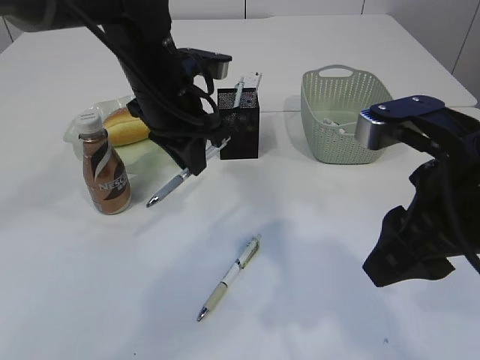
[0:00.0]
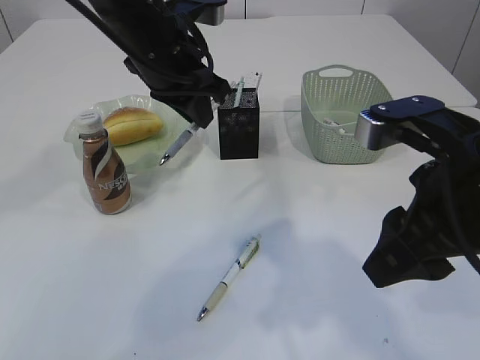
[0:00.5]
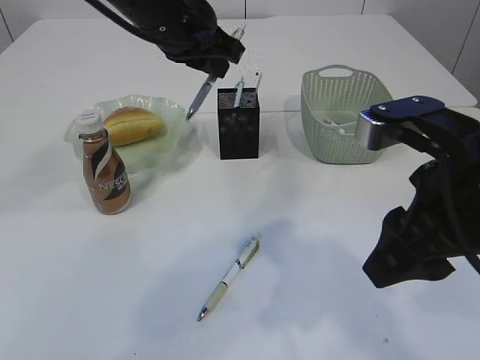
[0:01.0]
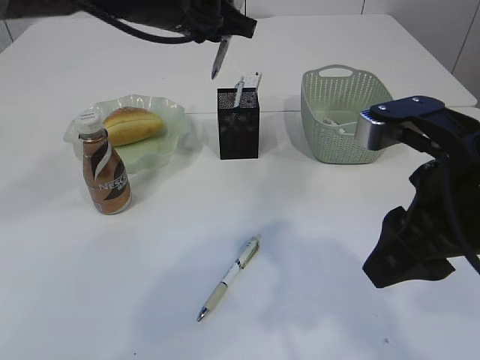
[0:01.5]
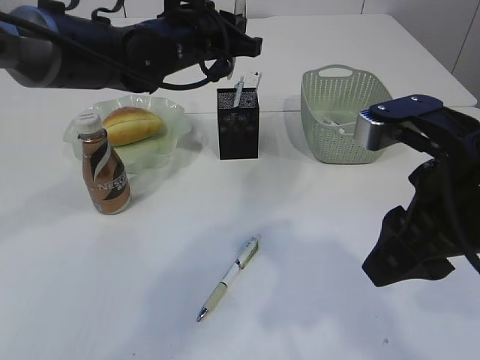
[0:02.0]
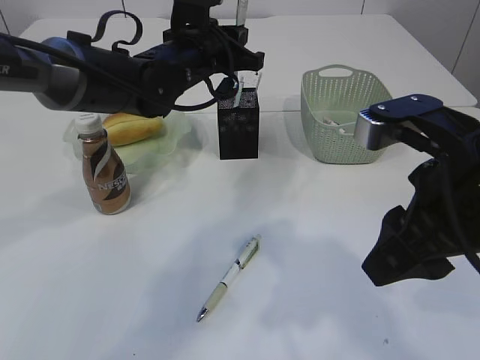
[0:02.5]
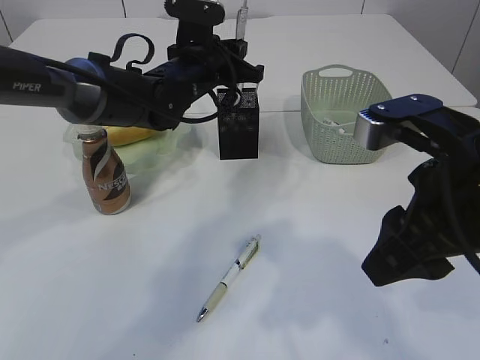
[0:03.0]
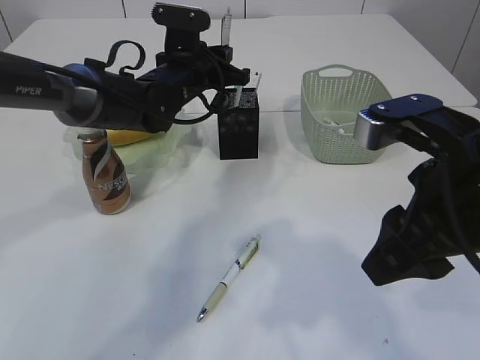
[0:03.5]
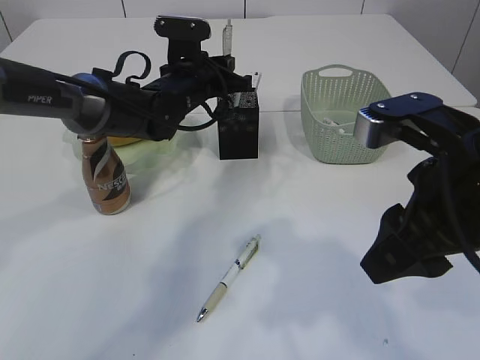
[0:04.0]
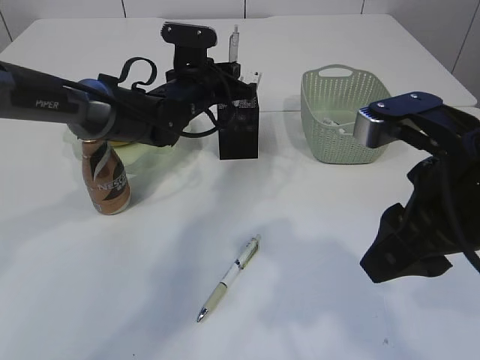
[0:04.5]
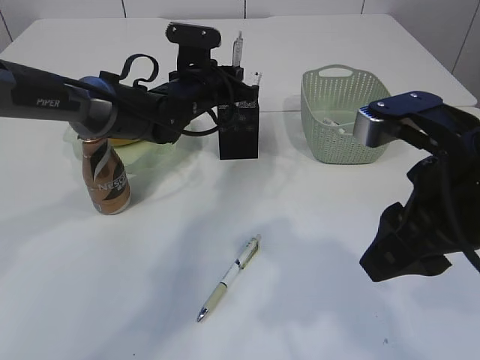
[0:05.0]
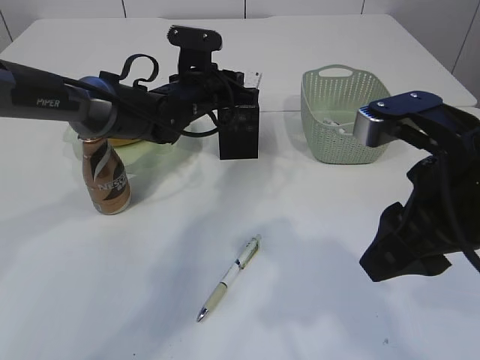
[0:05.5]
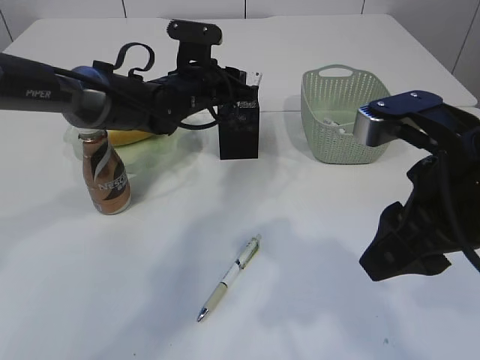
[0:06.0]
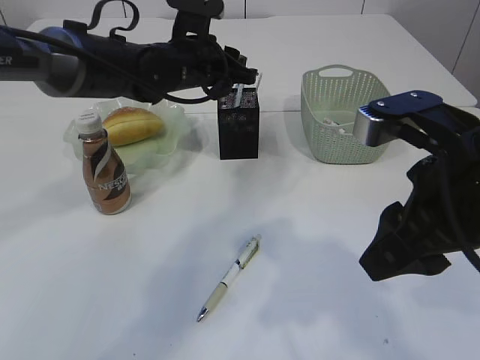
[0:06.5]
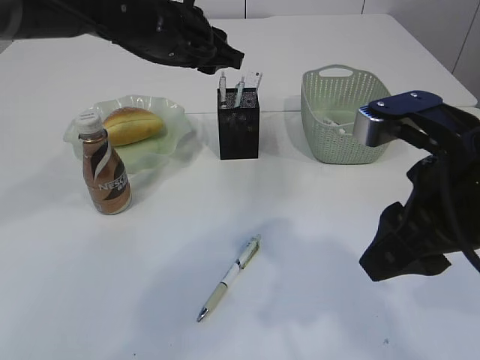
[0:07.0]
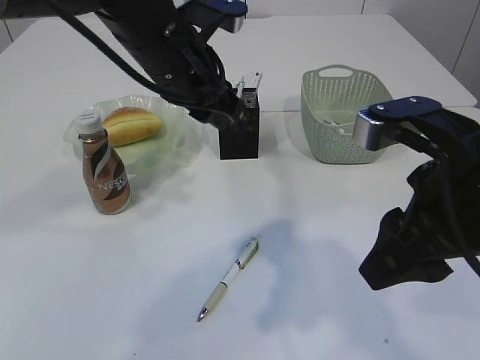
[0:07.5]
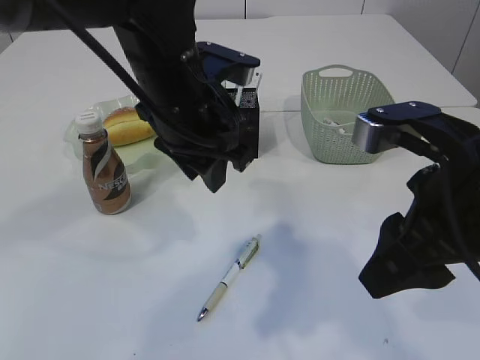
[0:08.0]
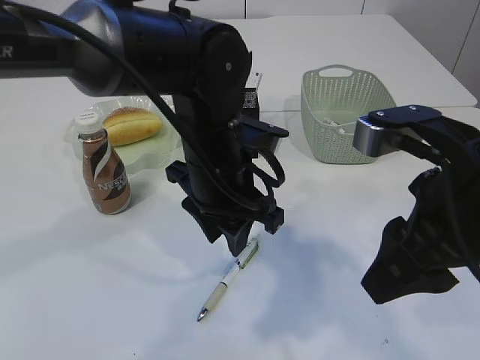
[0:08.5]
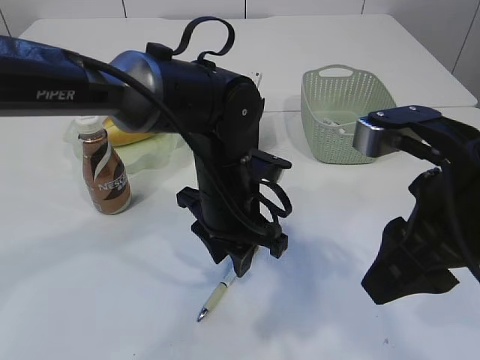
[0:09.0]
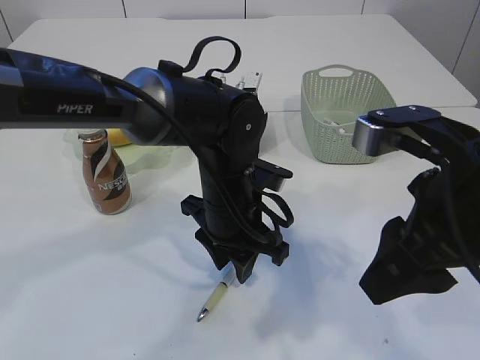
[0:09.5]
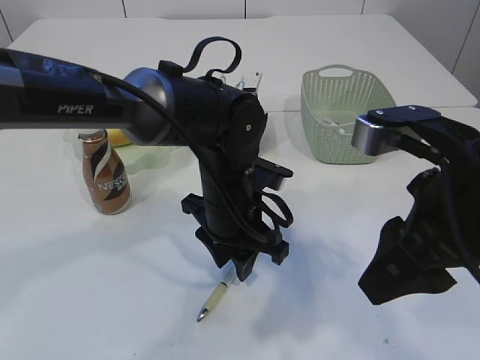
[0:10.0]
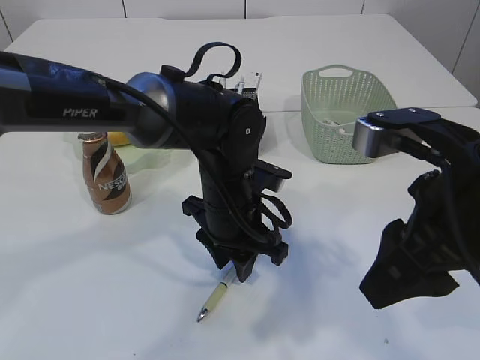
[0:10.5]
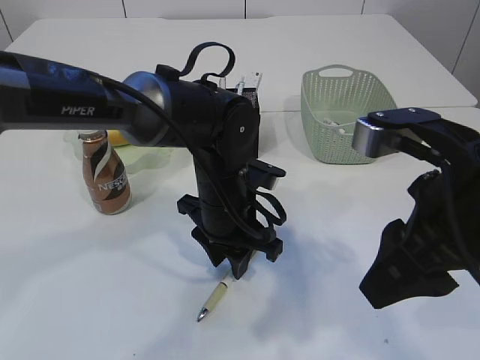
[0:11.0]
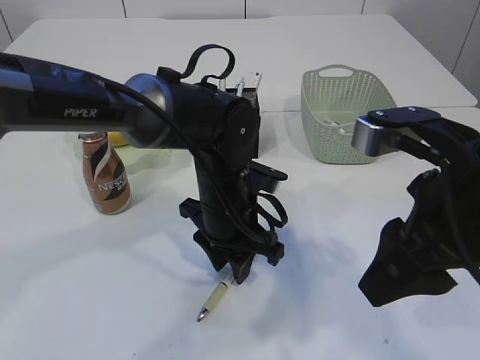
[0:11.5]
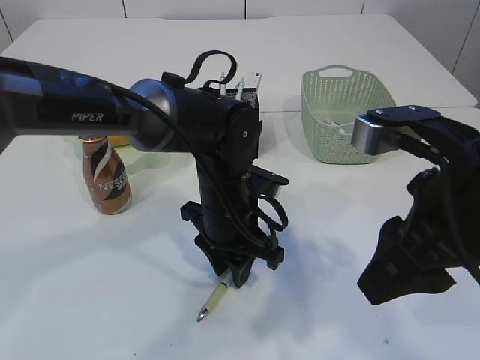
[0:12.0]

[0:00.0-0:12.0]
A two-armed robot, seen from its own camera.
Step, 0.0 to 7.0 s: Place the pen into the pen holder.
0.0 to 2.0 s: The left gripper goes about 5 cm forward.
2.0 to 4.0 s: The left gripper moves downward, some 10 cm.
4.0 to 6.0 s: The grippers make only small movements.
6.0 to 8.0 s: The left gripper moves backward and upward, approximately 15 cm.
8.0 to 10.0 s: The left gripper shifts roughly 10 cm downward.
10.0 to 12.0 s: The grippers make only small movements.

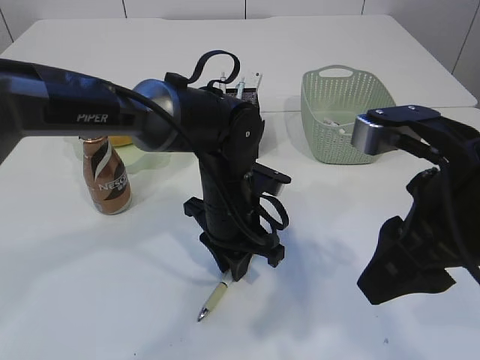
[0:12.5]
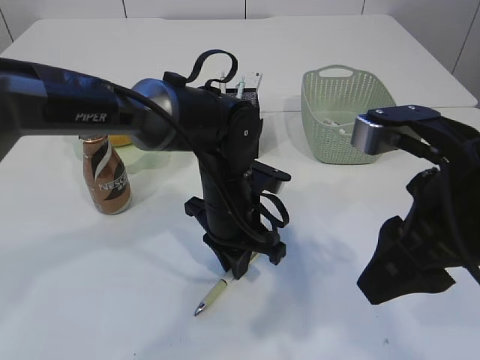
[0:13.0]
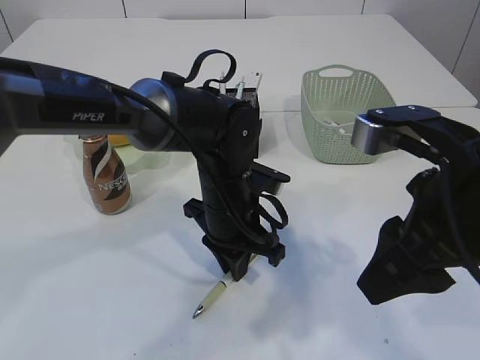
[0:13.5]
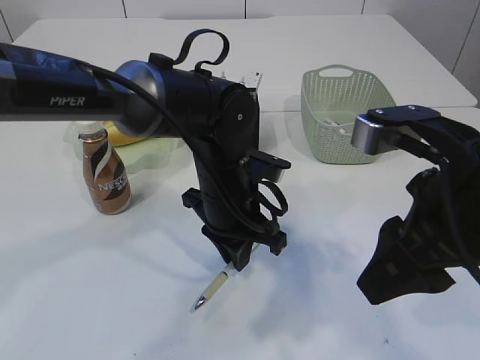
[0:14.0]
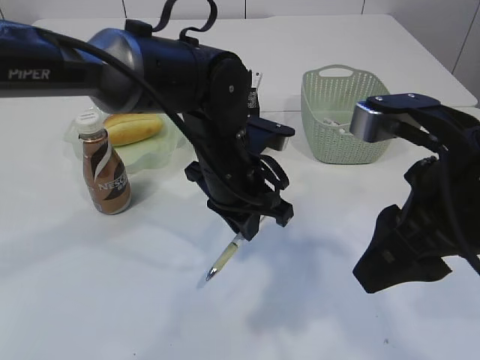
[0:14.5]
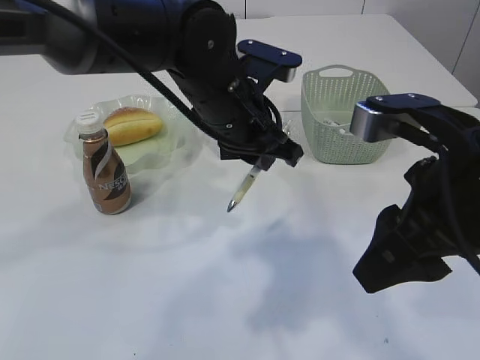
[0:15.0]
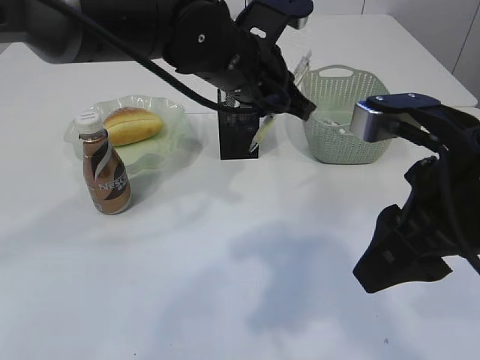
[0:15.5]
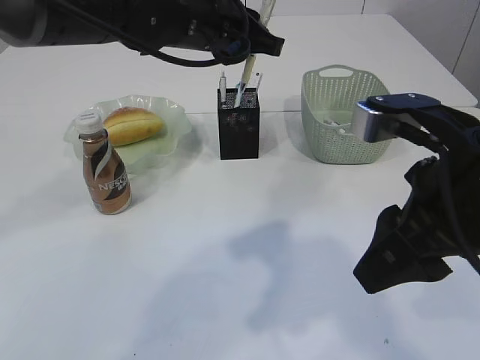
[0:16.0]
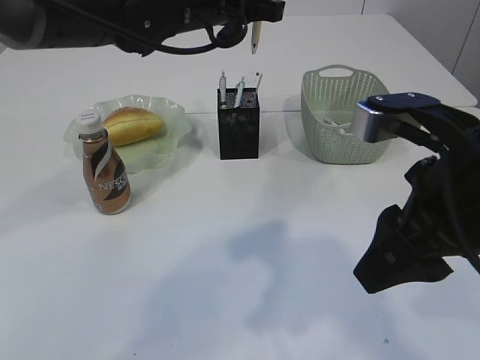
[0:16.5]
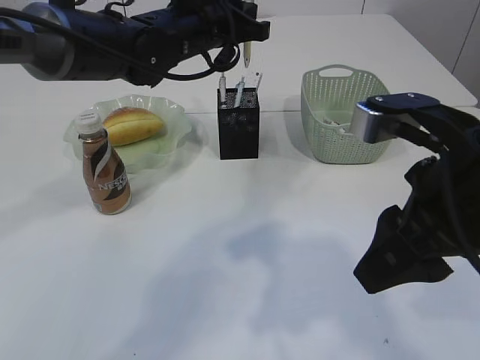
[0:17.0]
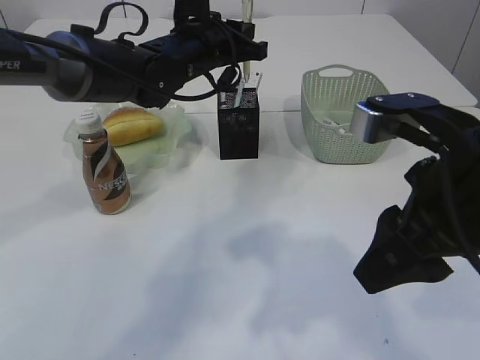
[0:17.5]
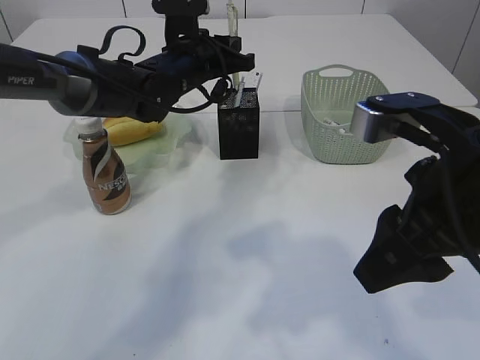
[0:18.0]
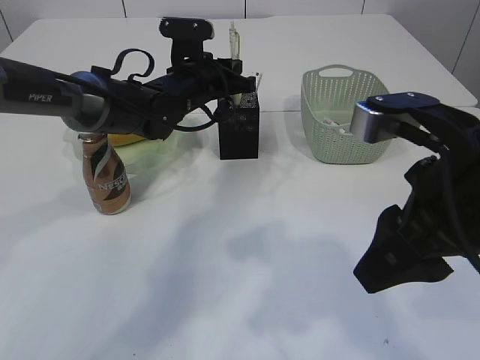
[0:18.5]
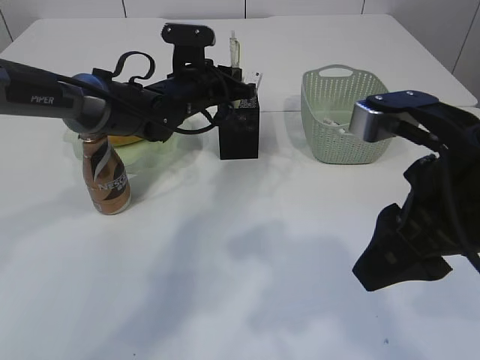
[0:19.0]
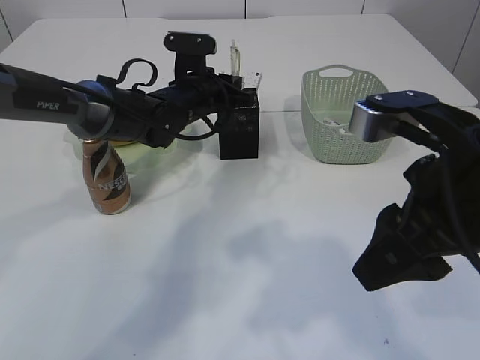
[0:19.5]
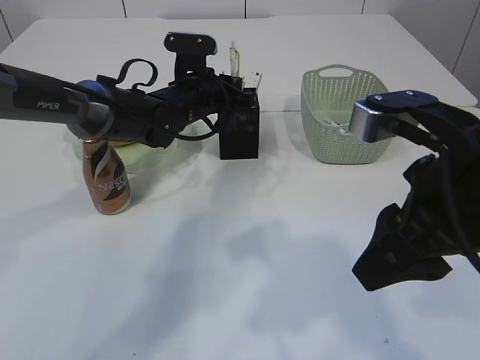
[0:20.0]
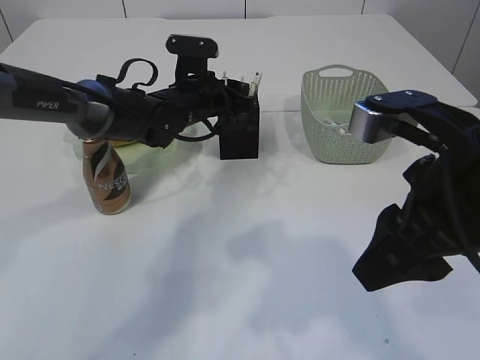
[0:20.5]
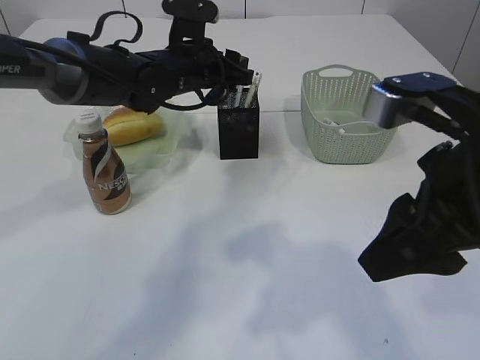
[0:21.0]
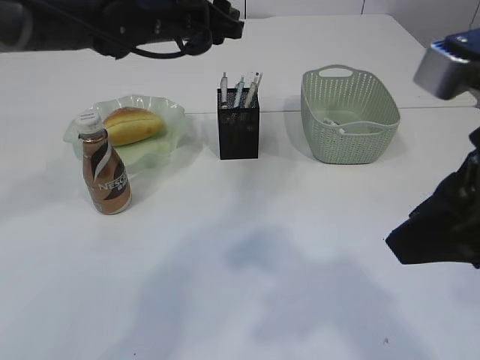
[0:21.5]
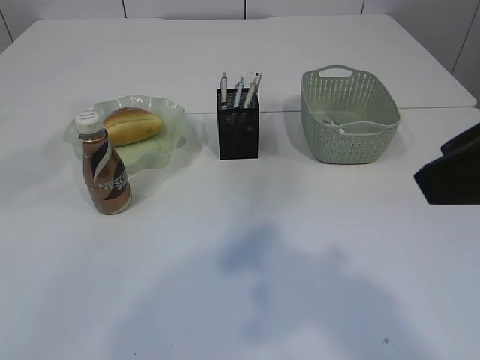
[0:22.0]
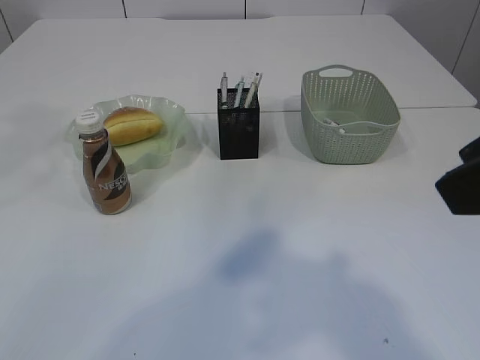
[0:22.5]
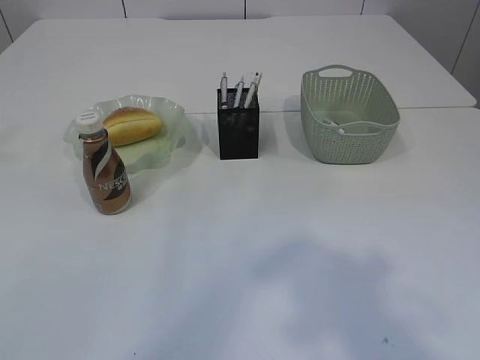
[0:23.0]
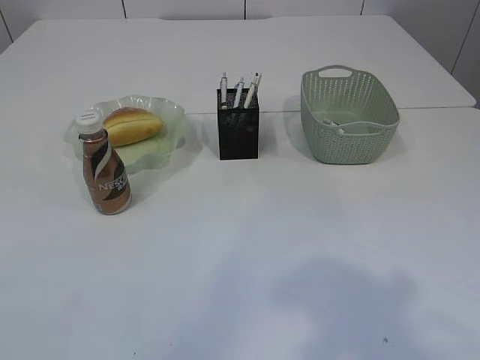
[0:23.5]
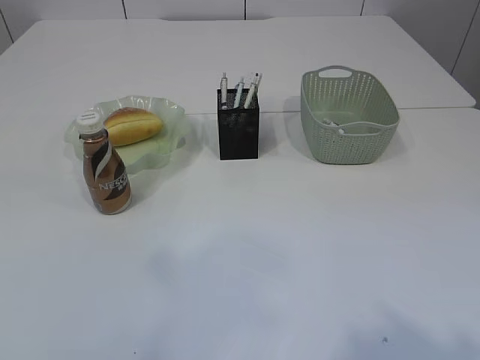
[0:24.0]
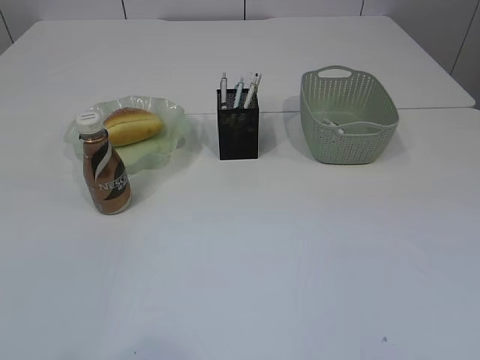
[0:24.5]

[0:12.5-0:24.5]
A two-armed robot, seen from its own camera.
Step, 12.5 to 14.5 s: Pick up the pen with left arm.
Step, 15.0 to 21.0 s: Place the pen into the pen holder.
12.5 to 14.5 s: The left gripper moves upward, about 5 cm.
14.5 to 16.5 s: The left gripper travels upward and forward by some 15 cm.
16.5 to 18.5 s: The left gripper travels downward and forward by about 15 cm.
18.5 to 20.5 s: The left gripper opens its fingers.
20.5 to 22.5 s: The right gripper is displaced upward and backward by roughly 10 cm. The left gripper is displaced upward and backward by approximately 30 cm.
22.5 to 24.5 s: The left gripper shifts about 35 cm backward; the right gripper shifts about 20 cm backward and to the right.

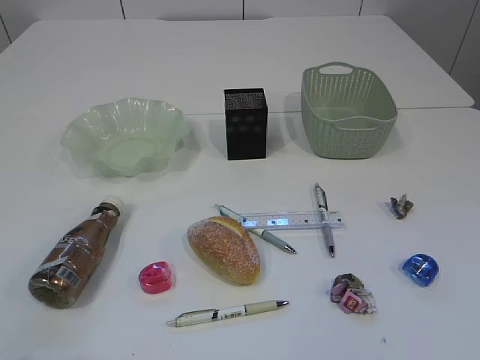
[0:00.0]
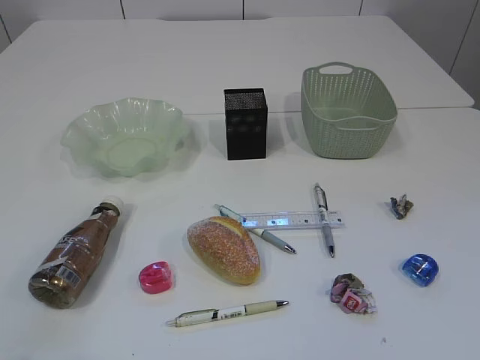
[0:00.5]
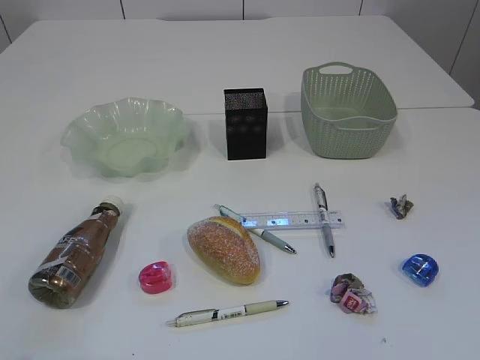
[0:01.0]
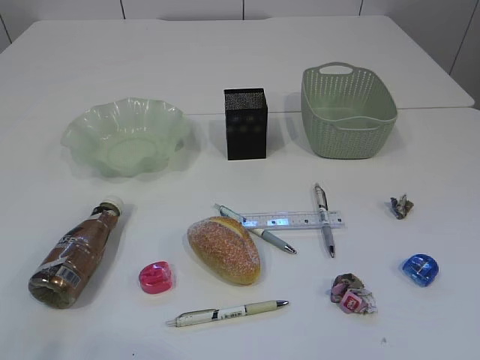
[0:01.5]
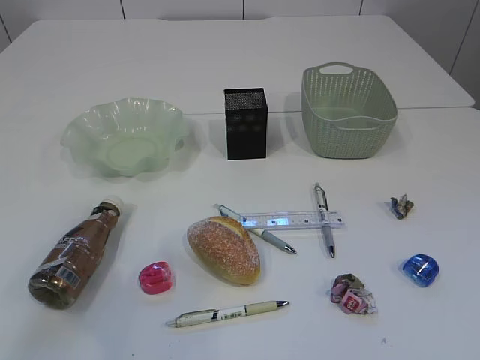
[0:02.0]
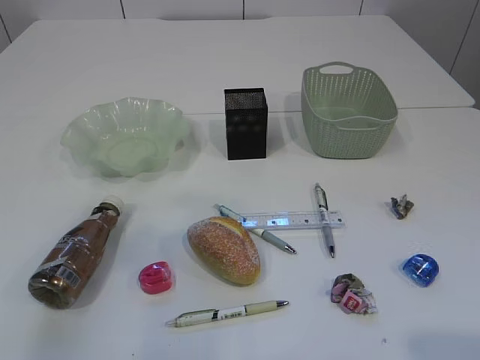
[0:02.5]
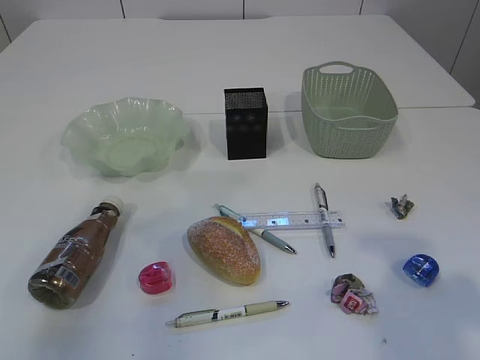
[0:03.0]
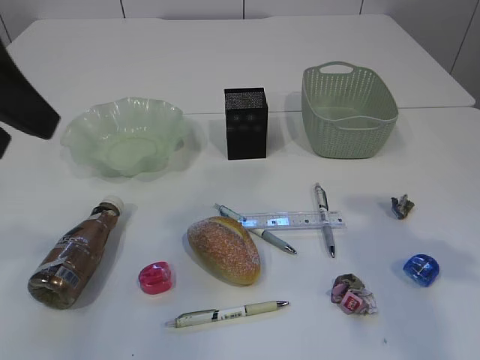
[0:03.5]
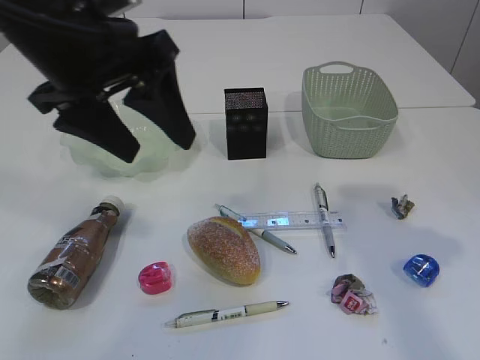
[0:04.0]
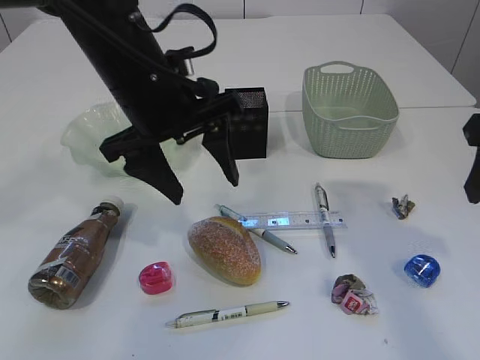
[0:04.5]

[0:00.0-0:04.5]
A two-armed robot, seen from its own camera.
2.0 to 4.5 s: The right gripper goes about 25 cm forward. The left gripper is displaced forward and to the right by about 35 cm.
